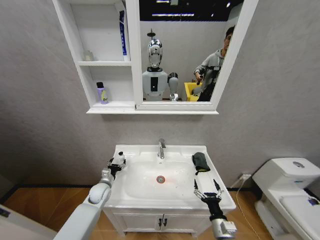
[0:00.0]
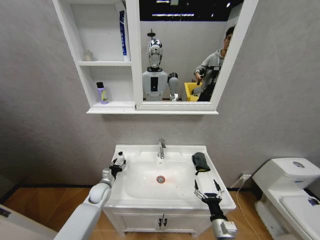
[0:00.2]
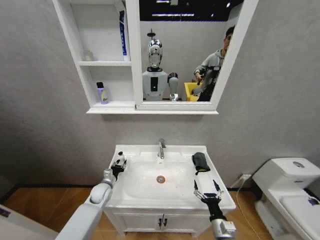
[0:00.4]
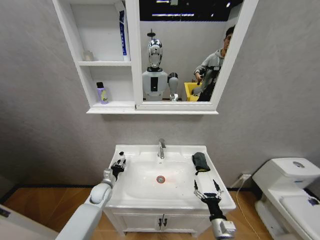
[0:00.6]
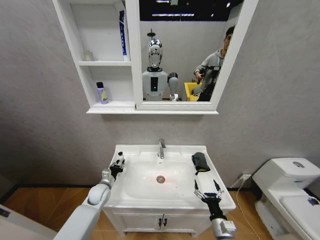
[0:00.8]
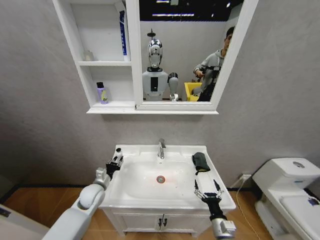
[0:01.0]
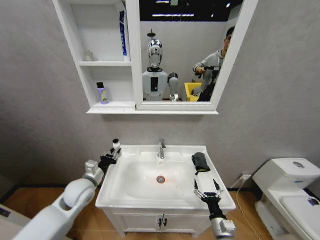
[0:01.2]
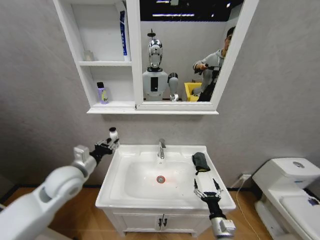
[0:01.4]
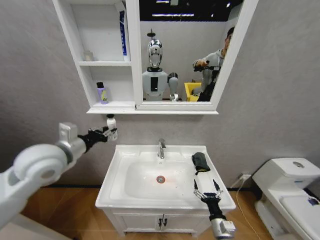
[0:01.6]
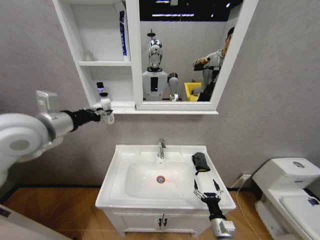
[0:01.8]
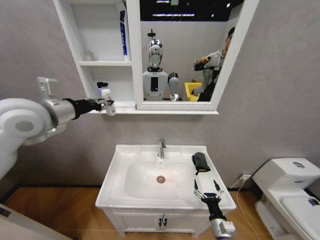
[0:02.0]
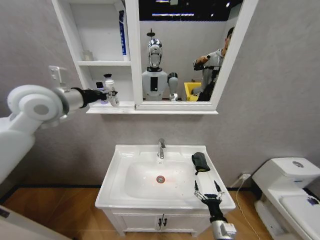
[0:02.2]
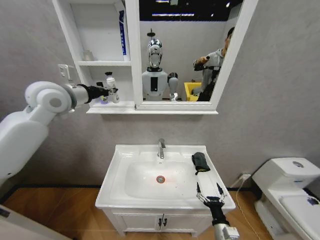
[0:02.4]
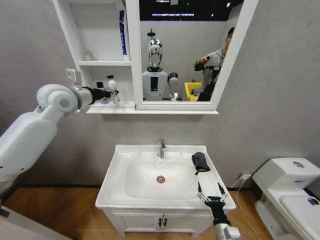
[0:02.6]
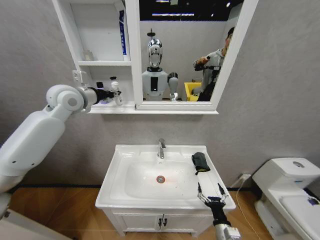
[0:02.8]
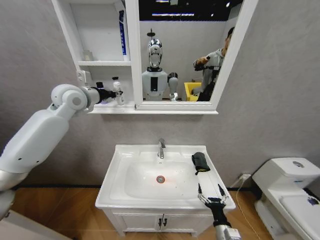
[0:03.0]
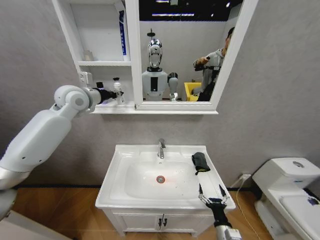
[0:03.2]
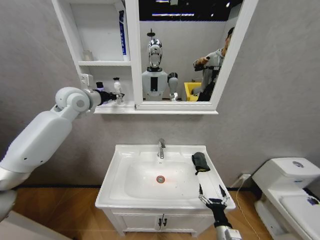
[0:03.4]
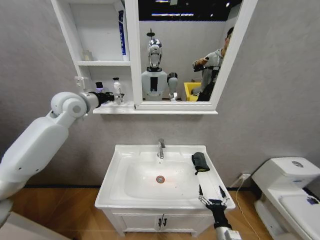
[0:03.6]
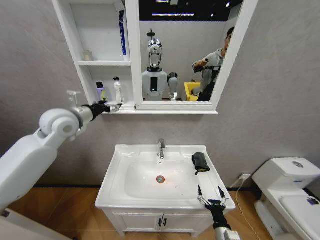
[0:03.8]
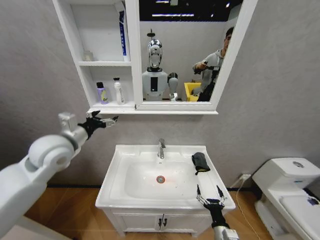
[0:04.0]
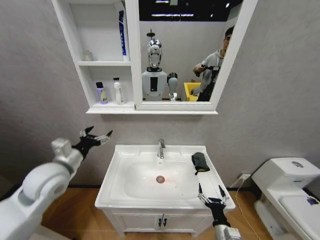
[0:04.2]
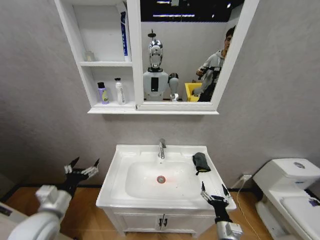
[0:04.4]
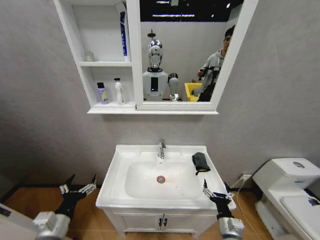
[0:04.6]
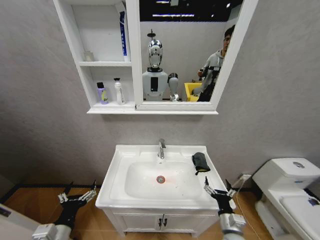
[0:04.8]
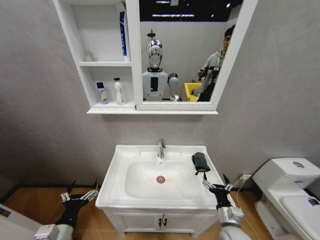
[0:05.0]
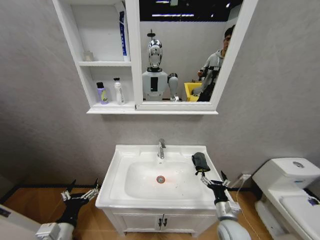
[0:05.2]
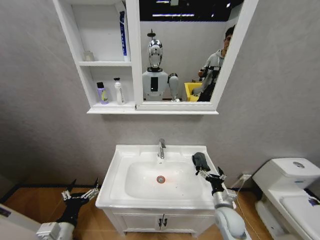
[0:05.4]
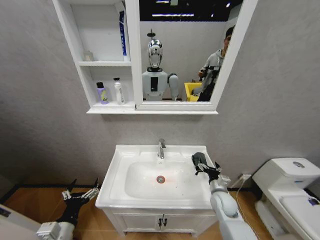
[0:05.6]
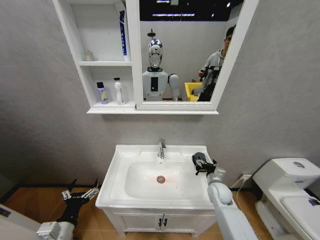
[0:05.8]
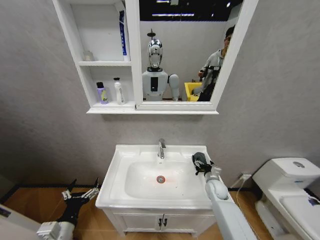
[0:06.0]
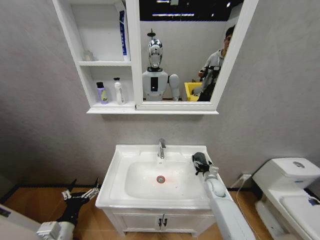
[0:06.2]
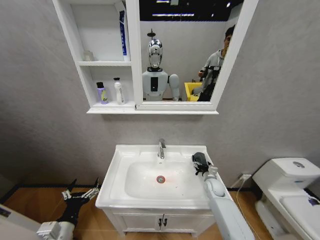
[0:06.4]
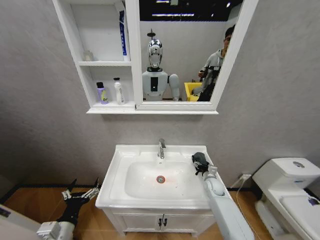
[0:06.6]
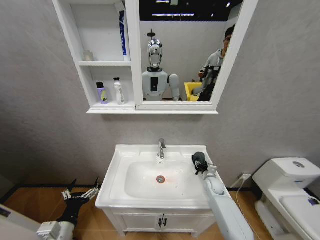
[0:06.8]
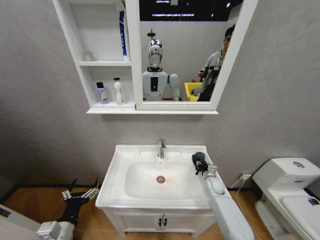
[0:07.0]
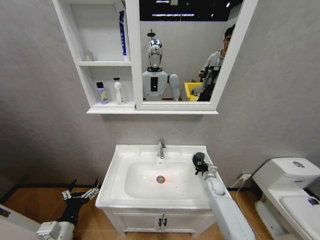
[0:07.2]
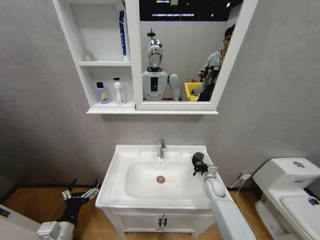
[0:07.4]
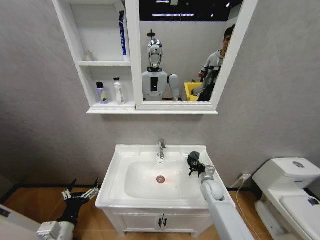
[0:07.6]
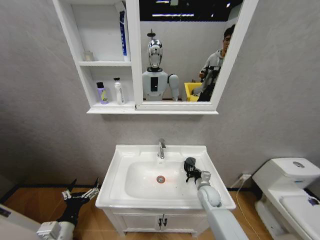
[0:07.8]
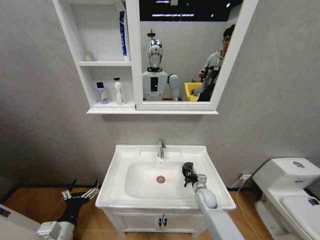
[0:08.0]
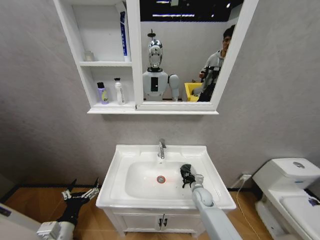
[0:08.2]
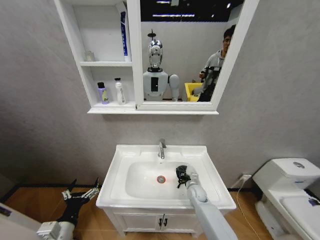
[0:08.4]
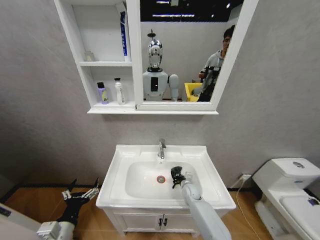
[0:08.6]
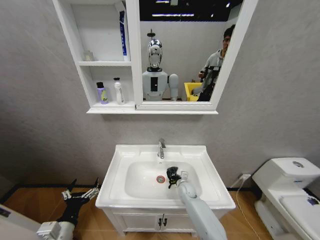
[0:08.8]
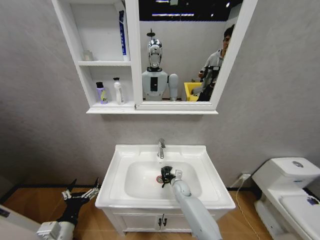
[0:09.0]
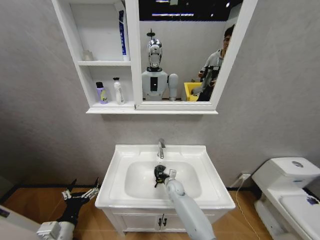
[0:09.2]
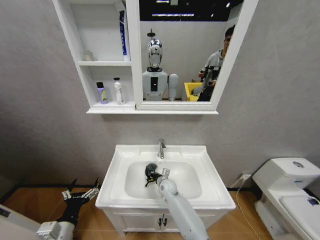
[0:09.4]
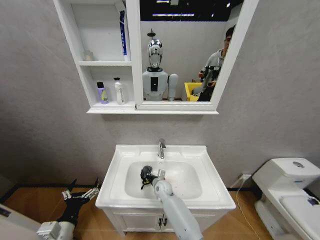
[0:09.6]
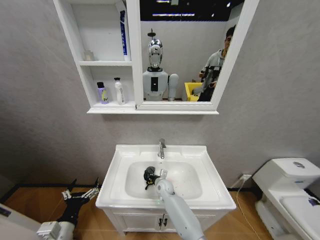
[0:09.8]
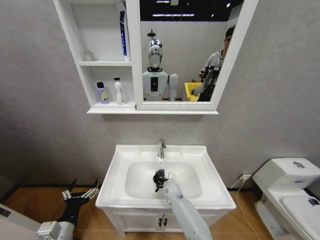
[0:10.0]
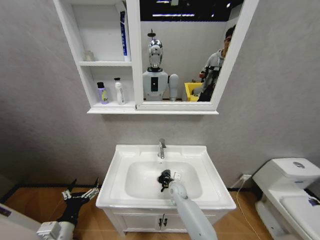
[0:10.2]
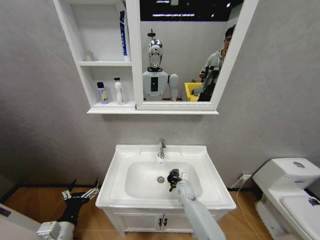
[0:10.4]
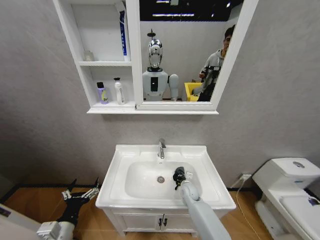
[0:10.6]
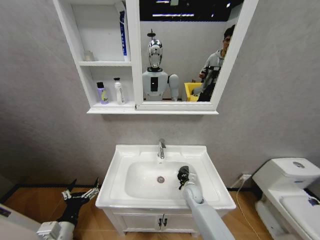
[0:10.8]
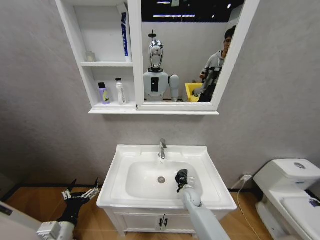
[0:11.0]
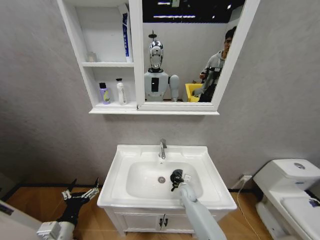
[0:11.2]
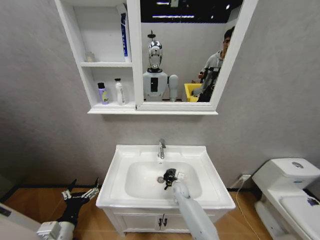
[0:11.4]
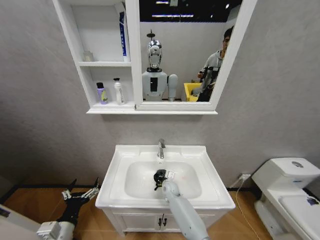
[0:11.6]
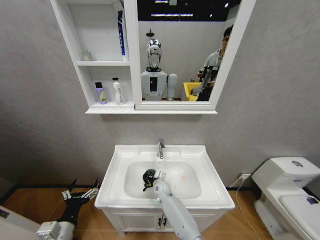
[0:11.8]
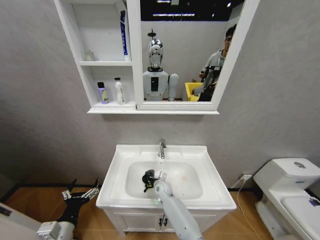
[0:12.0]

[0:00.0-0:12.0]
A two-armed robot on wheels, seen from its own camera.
Task of the whole recording: Move facial cleanser and shampoo from washbasin to cabinet, then wipe washbasin with towel.
0:00.0 to 0:01.6: The left gripper moves upward, roughly 35 cm, and closes up.
0:01.6 to 0:03.0: The left gripper moves forward and upward, roughly 20 cm.
0:03.0 to 0:04.4: The left gripper moves downward and backward, approximately 40 cm, and opens.
0:04.4 to 0:06.0: The left gripper moves downward and backward, roughly 10 cm. Meanwhile the right gripper goes approximately 25 cm forward.
0:06.0 to 0:07.6: The right gripper closes up.
0:07.6 to 0:09.0: The right gripper shifts about 15 cm to the left and downward.
0:09.0 to 0:10.4: The right gripper moves about 10 cm to the left and comes back.
0:10.4 to 0:12.0: The right gripper is displaced to the left by some 15 cm.

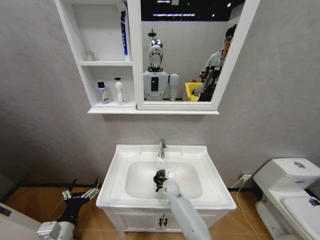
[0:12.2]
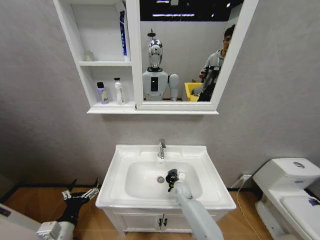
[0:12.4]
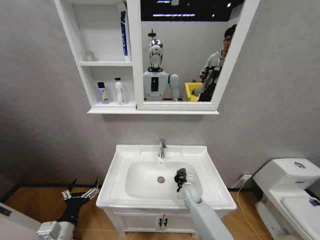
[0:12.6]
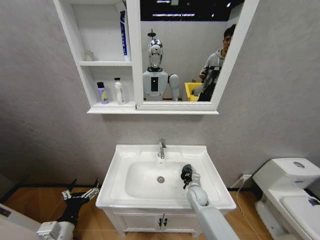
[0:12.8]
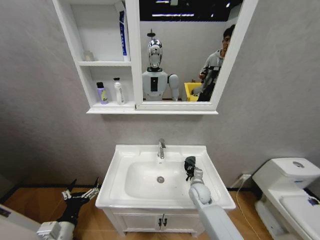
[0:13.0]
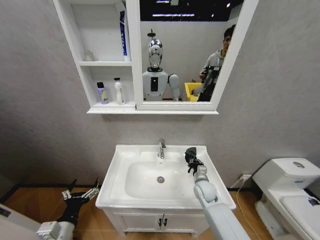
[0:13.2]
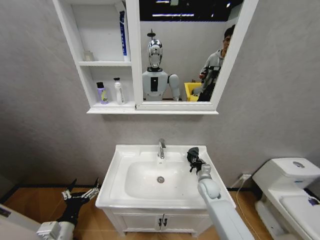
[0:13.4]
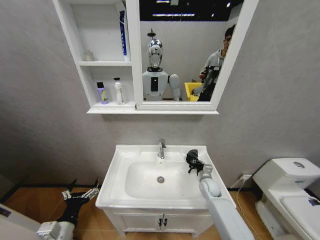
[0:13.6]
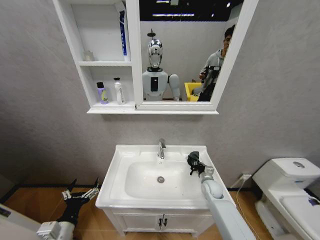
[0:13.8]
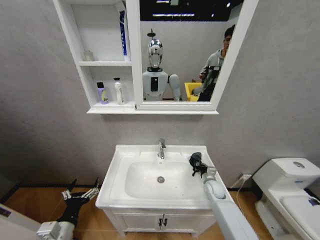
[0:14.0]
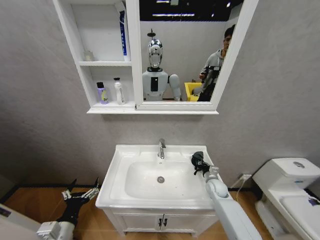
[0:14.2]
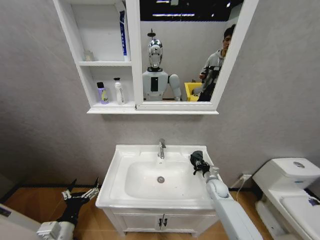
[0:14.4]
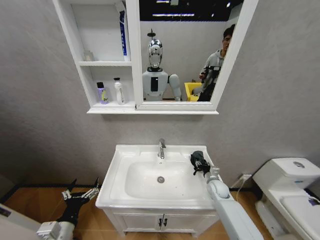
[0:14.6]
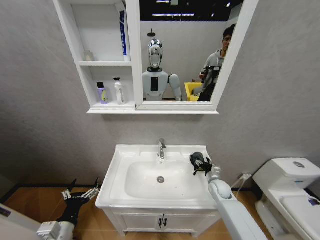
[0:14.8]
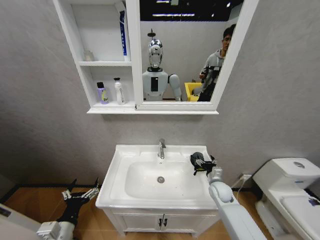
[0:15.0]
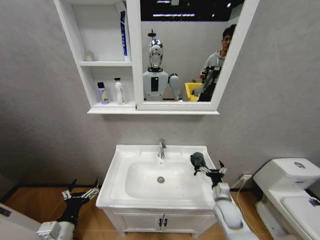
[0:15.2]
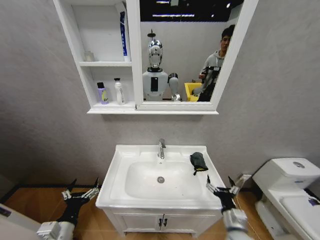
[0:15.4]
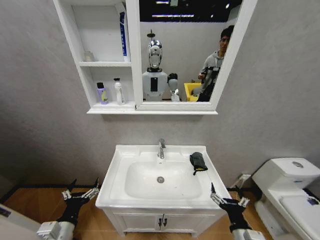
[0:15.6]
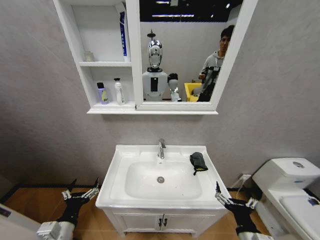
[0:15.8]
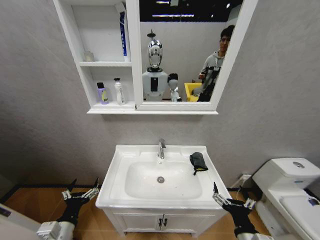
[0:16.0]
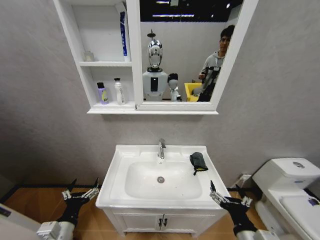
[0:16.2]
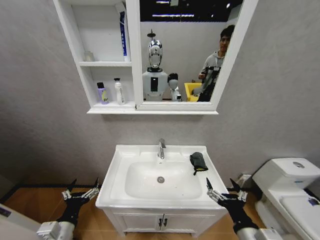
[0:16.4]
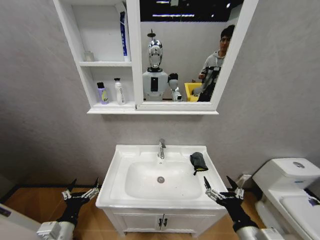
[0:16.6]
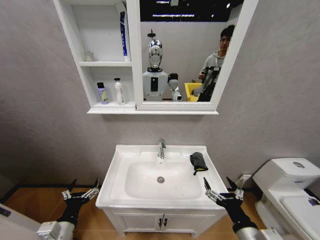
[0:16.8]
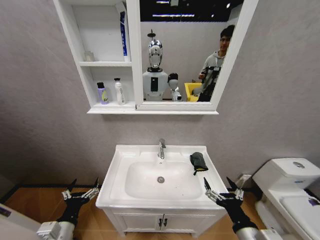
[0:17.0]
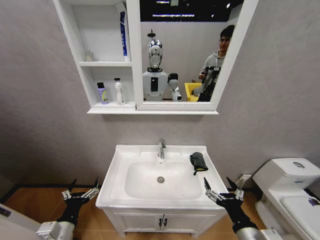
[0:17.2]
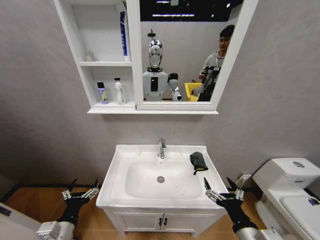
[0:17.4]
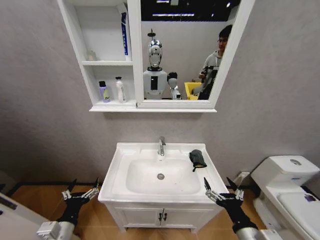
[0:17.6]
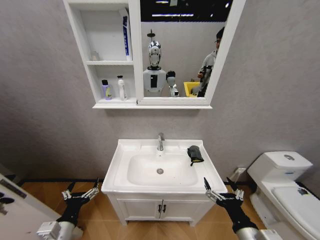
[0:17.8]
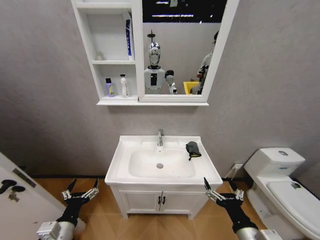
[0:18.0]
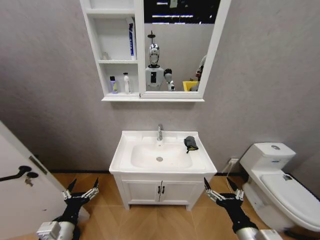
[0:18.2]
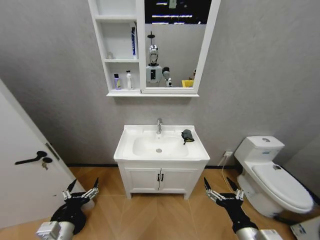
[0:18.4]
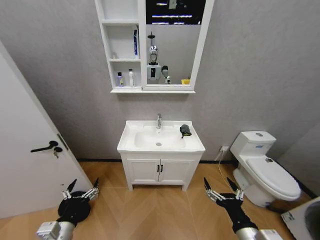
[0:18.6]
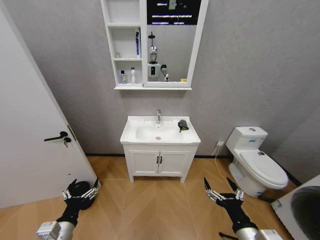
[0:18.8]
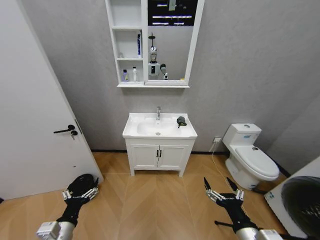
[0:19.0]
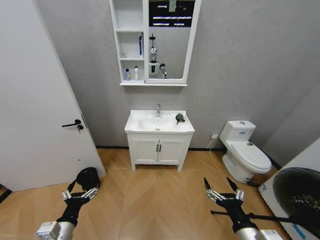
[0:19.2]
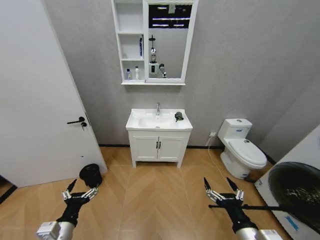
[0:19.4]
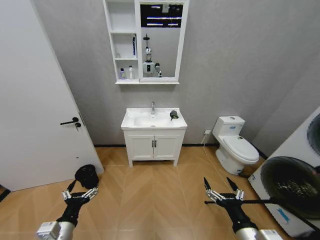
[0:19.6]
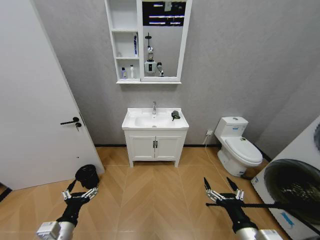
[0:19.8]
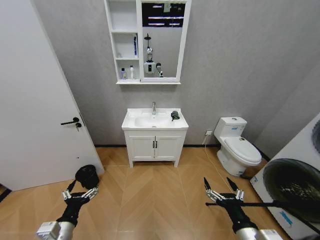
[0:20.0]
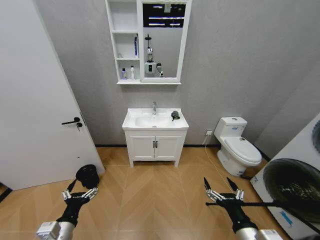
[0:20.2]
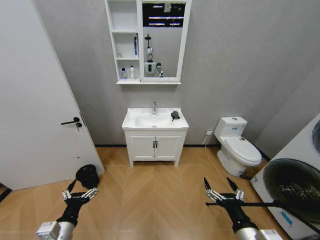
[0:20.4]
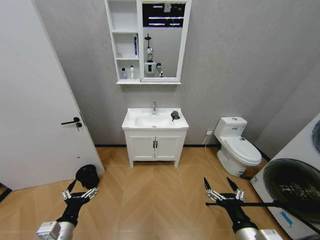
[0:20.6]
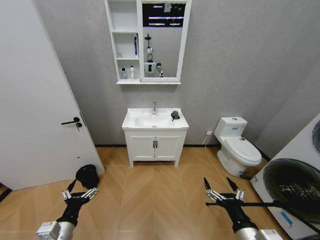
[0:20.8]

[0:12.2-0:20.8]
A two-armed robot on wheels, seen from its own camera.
Task of the whole recording: Move facial cleanser and shampoo from washbasin to cabinet, then wipe washbasin with towel.
0:12.2 to 0:13.6: The right gripper moves to the right, some 20 cm.
0:13.6 to 0:15.0: The right gripper opens.
0:15.0 to 0:16.6: The right gripper shifts approximately 30 cm backward and upward.
0:19.4 to 0:20.8: Neither gripper changes place.
